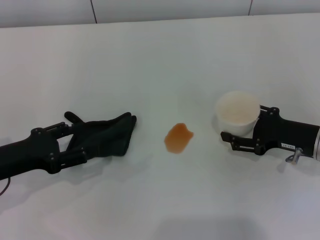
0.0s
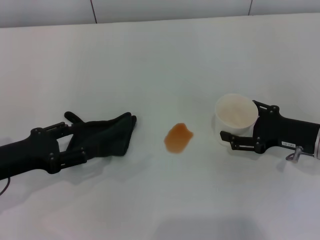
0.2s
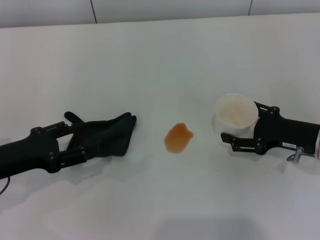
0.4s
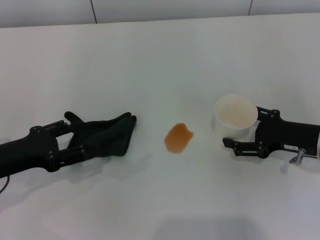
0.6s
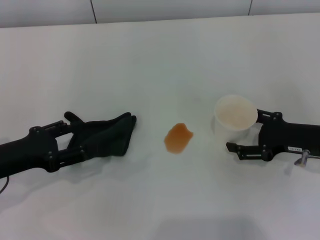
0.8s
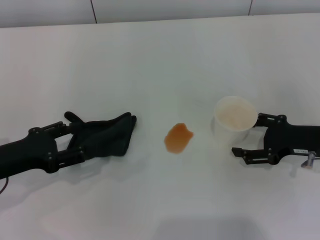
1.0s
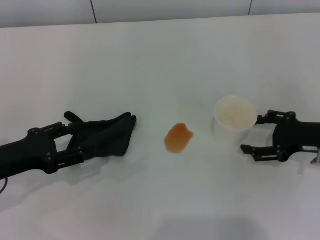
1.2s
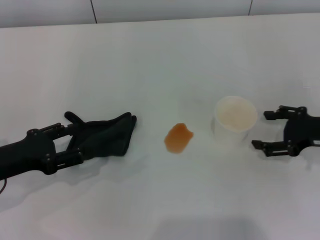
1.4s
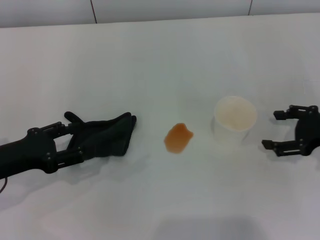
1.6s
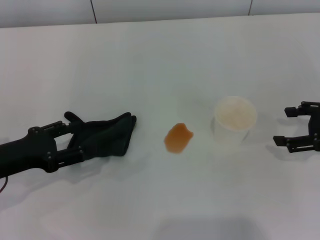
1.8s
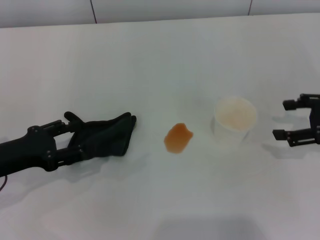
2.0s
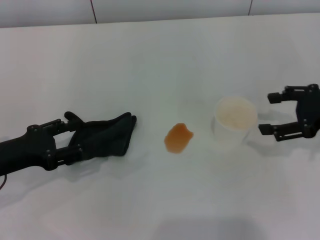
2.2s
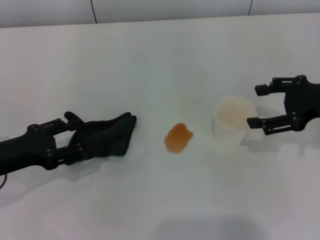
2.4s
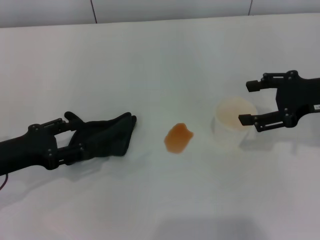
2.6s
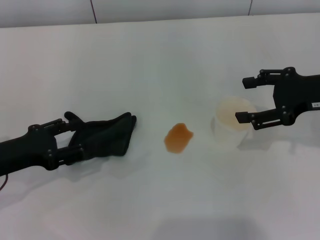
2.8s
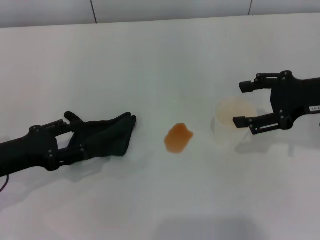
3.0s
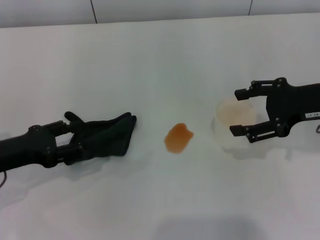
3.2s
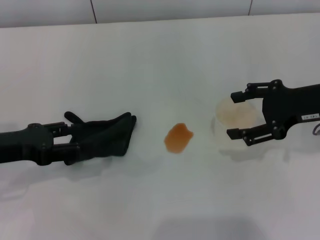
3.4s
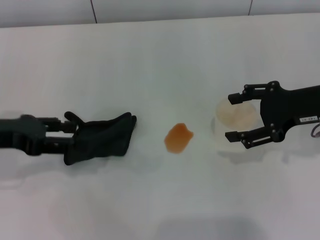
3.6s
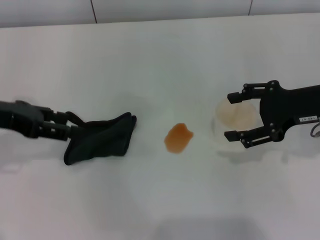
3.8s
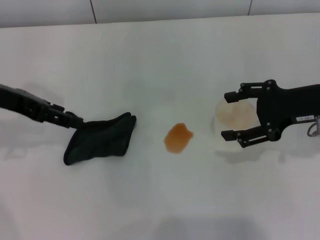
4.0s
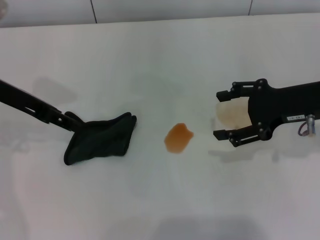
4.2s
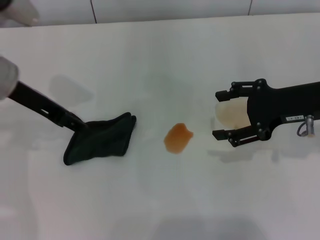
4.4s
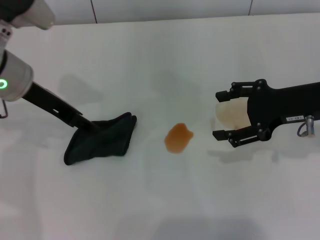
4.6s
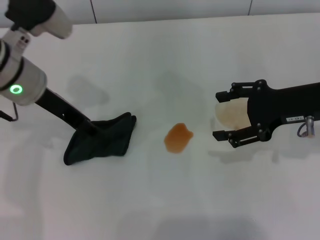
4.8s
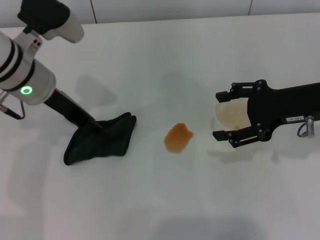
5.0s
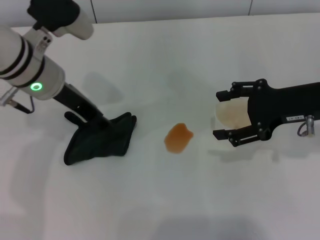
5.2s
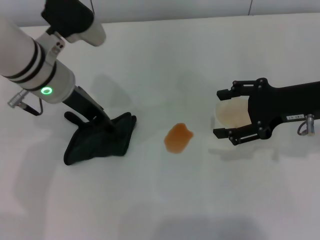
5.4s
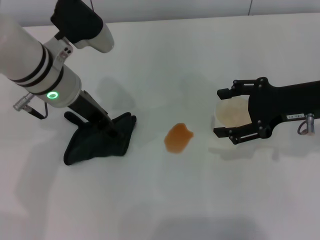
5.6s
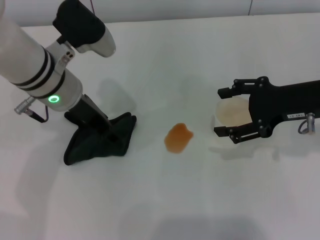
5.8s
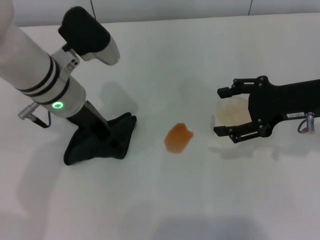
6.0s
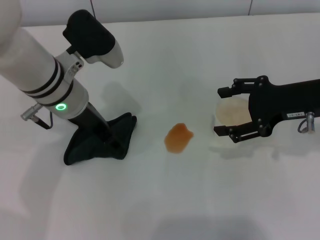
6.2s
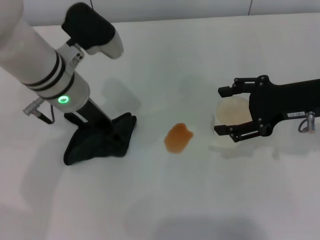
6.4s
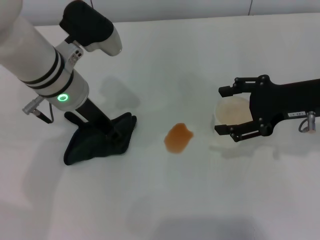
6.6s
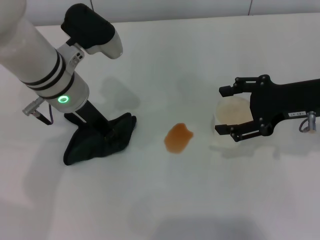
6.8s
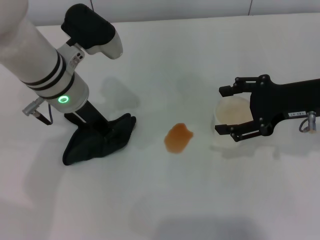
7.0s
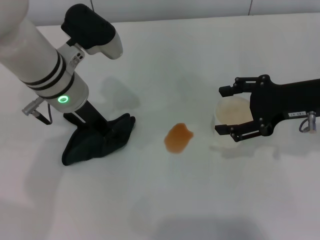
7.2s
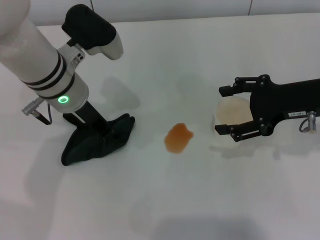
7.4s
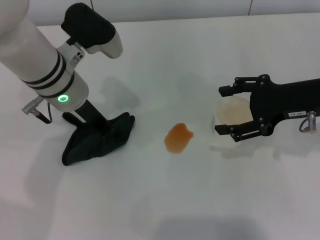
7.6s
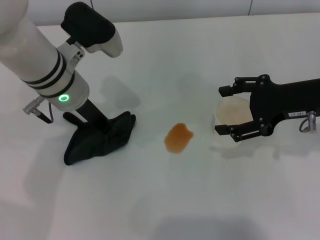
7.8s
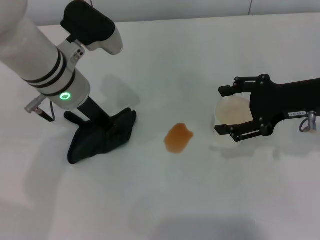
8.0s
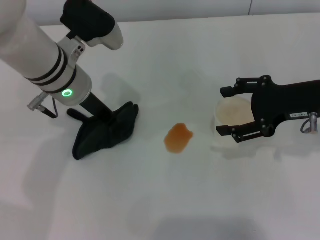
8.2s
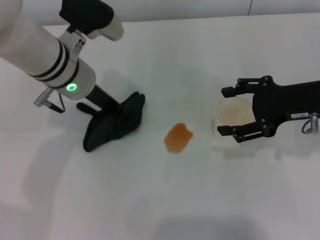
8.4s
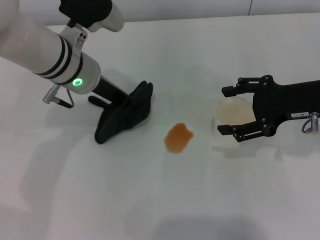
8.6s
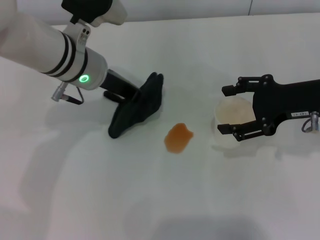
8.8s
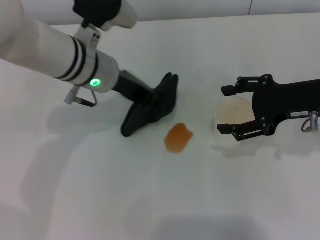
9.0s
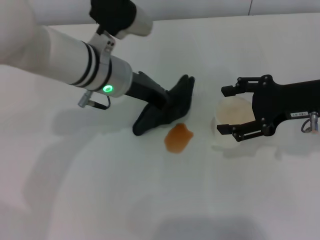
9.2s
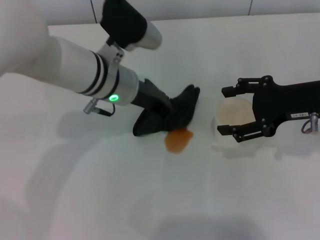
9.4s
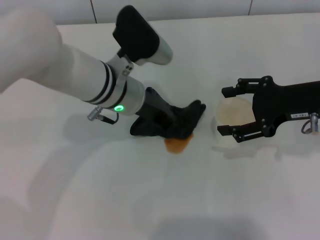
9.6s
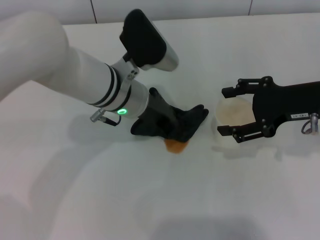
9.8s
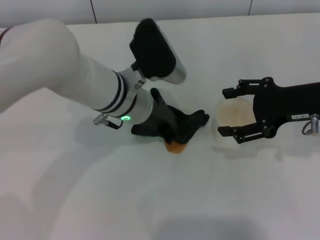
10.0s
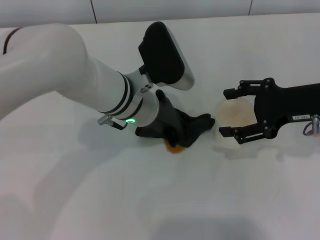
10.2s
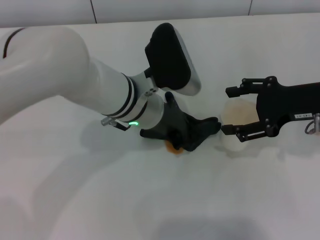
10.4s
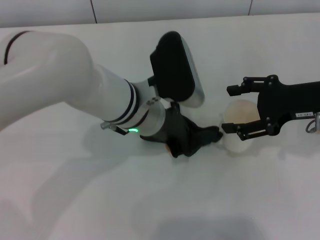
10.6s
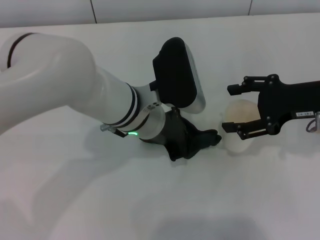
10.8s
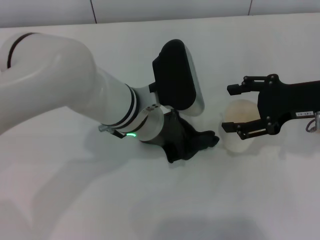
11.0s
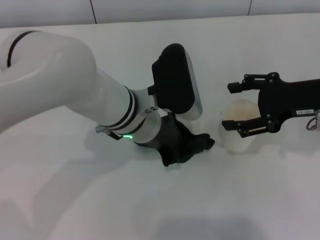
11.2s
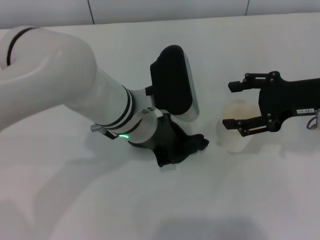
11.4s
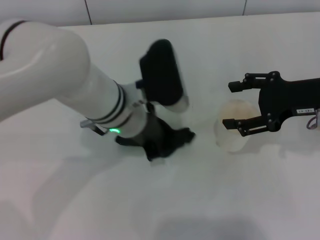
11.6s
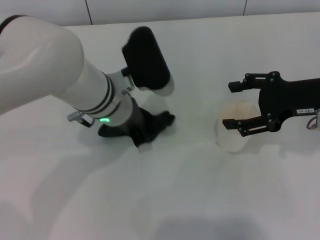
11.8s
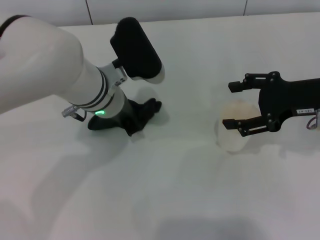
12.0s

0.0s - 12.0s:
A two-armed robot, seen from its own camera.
Step, 1.6s - 7.2s: Grasp the rag with the left gripper.
0.0s - 1.6s: The right gripper travels to the right and upward by approximately 5 cm, and opens its fingers.
1.6s - 3.0s: The right gripper heads upward, covering about 5 cm.
3.0s - 4.4s: The left gripper moves upward, forward and to the right, approximately 15 cm.
4.4s - 6.0s: The left gripper travels to the right by about 10 cm.
6.0s - 7.6s: The left gripper closes up.
9.0s - 10.4s: The left gripper goes roughly 5 cm to the right.

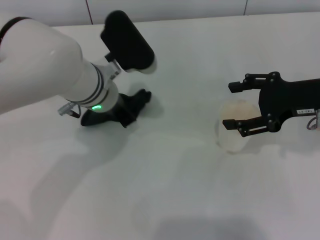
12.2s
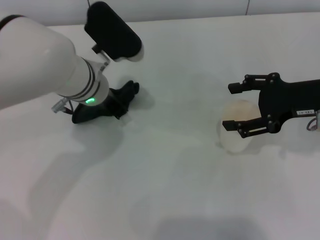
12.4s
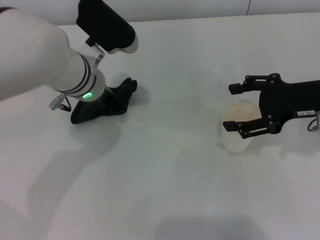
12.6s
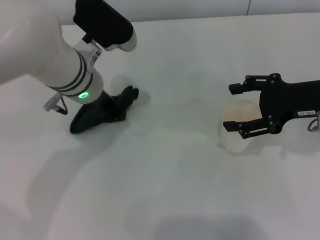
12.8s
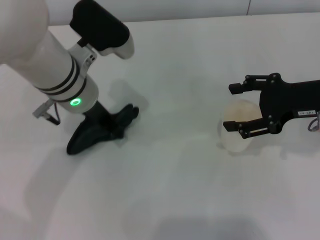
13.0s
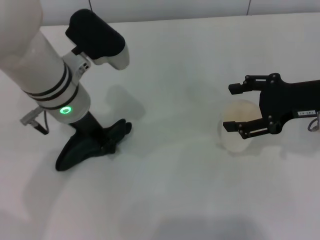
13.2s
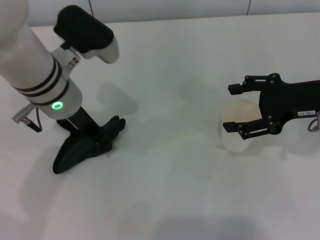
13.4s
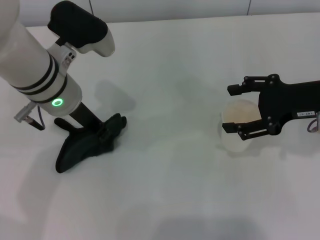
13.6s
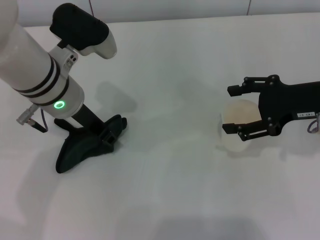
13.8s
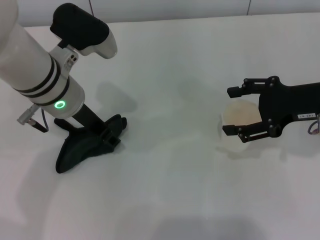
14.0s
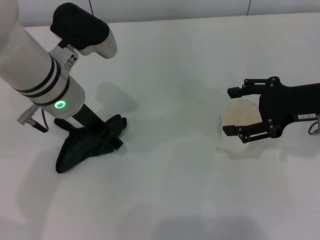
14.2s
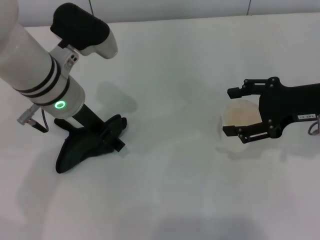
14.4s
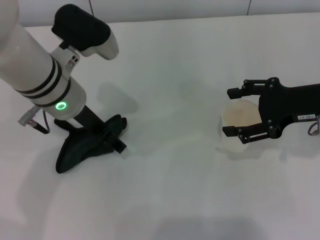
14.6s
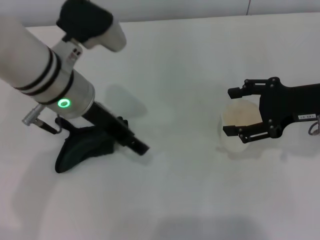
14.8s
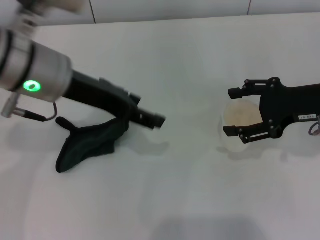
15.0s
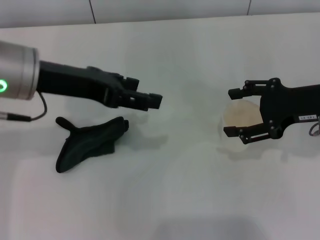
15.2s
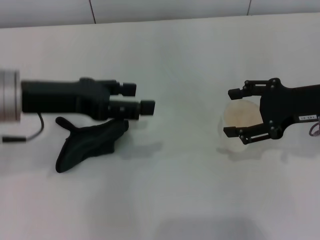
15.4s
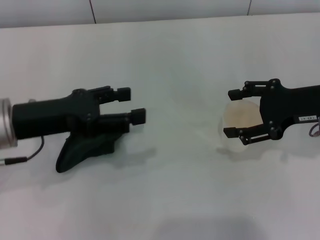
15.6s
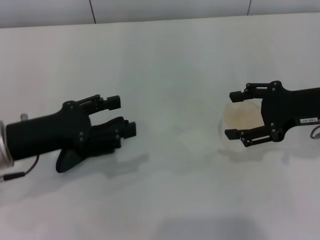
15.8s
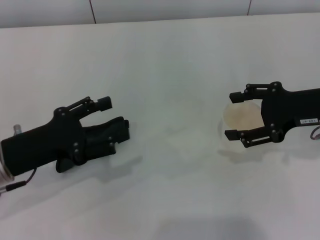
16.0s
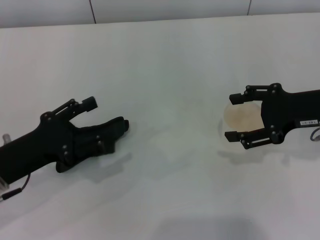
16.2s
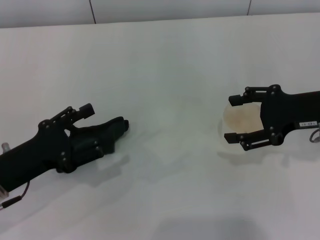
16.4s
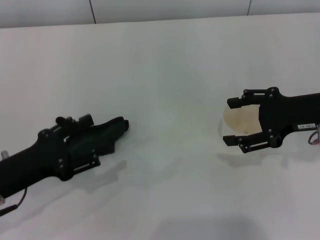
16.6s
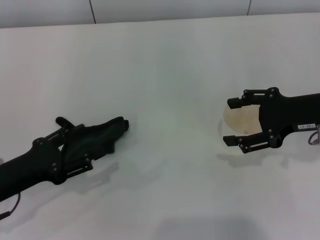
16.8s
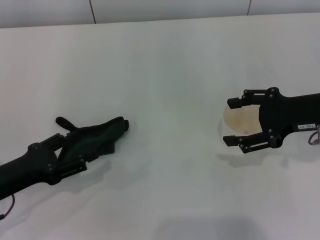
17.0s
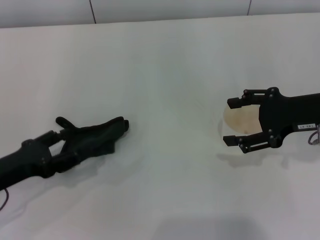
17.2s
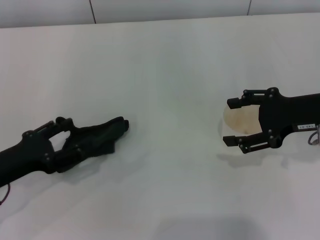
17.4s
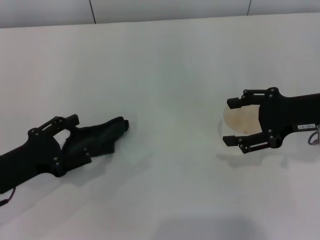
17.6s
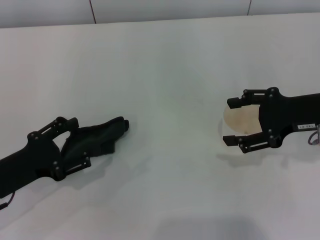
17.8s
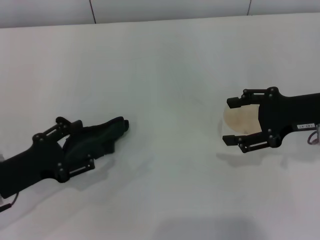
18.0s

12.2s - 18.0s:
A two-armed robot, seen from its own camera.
Step, 13.8s - 14.8s: Place the rag on the table with the left gripper.
12.2s - 13.6s: The left gripper moves roughly 5 cm.
13.6s - 15.0s: The left gripper moves upward, roughly 5 cm, and opens its fingers.
15.0s - 16.6s: The left gripper shifts about 20 cm downward, to the left and backward.
16.6s - 18.0s: There are only small adjustments of the grippers.

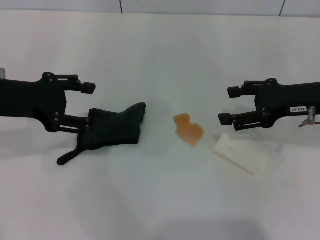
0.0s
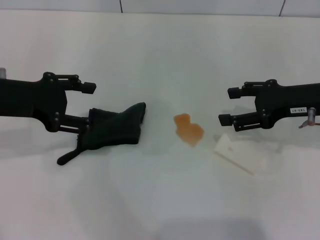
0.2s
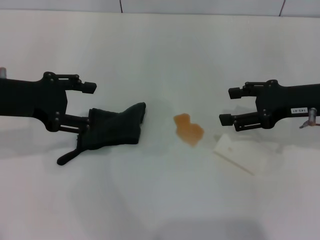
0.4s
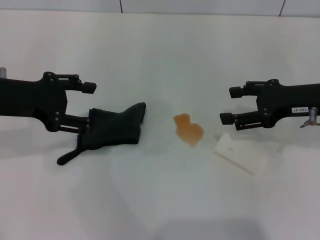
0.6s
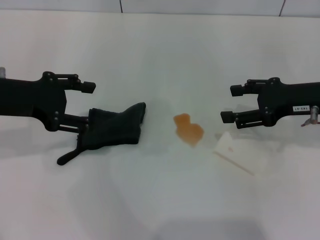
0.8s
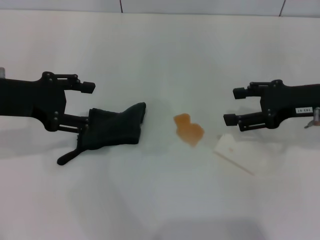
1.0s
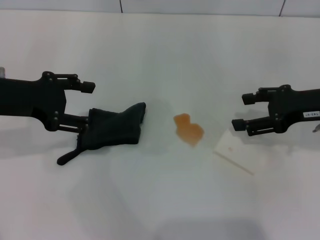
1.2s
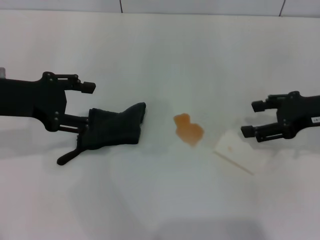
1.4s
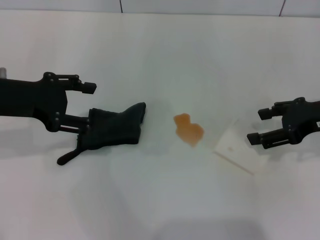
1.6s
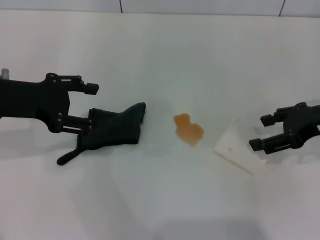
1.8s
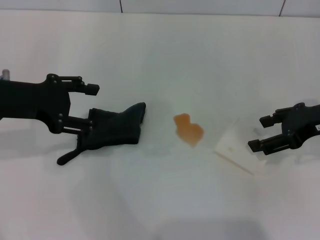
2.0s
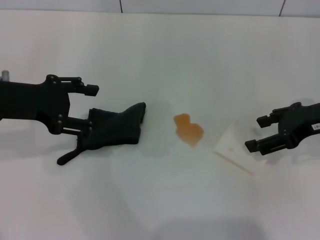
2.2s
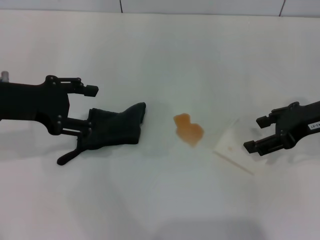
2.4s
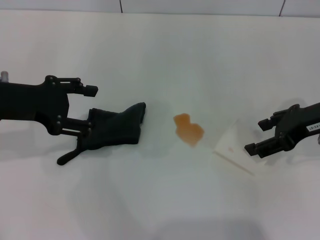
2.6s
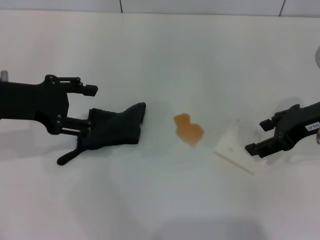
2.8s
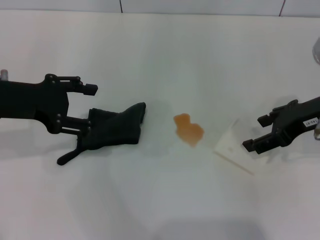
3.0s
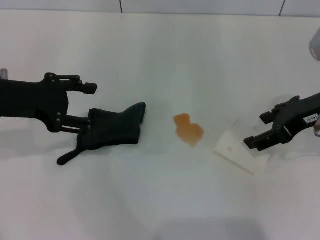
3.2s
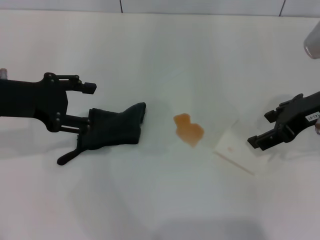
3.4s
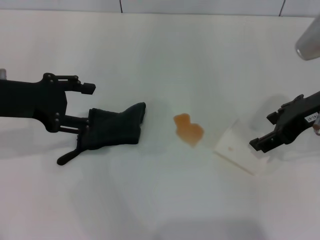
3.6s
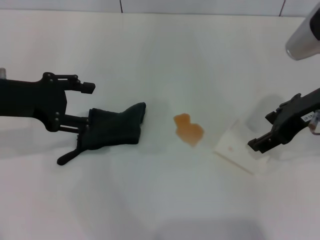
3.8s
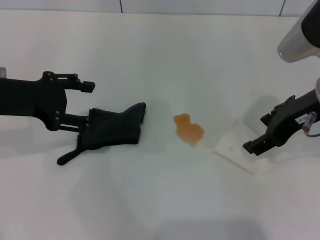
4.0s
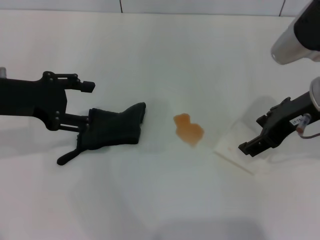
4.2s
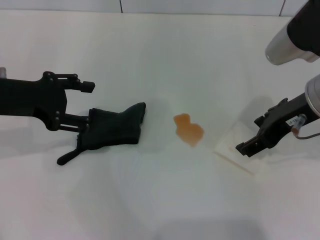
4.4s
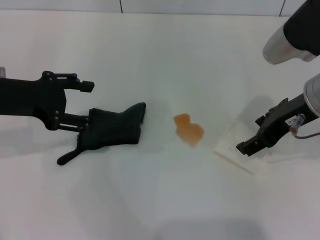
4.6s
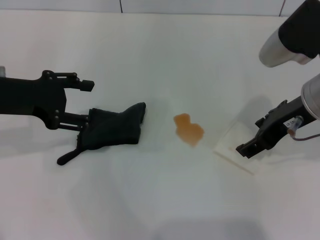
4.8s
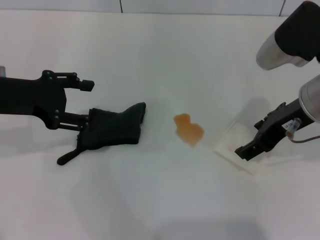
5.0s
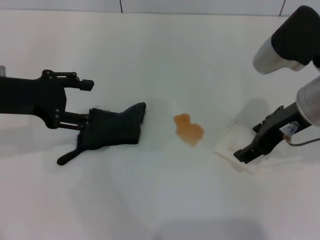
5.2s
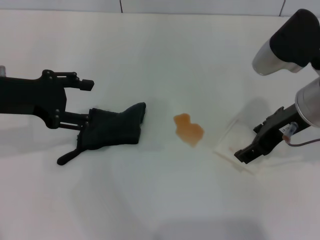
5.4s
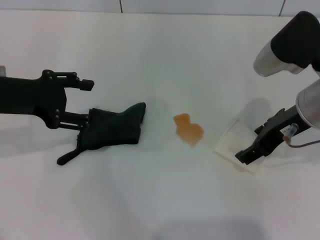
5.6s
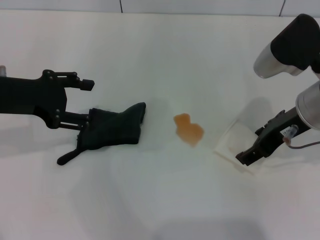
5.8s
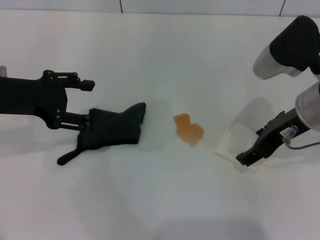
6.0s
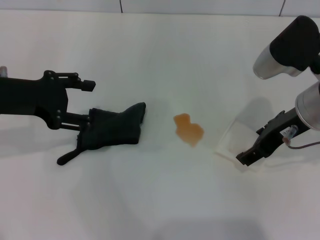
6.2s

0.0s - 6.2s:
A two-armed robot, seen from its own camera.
0.0s - 1.6s: The grippers stay close to where they were, moving slightly.
1.6s - 3.2s: The right gripper moves some 5 cm.
3.2s - 6.2s: The grippers stay close to where they were, moving slightly.
